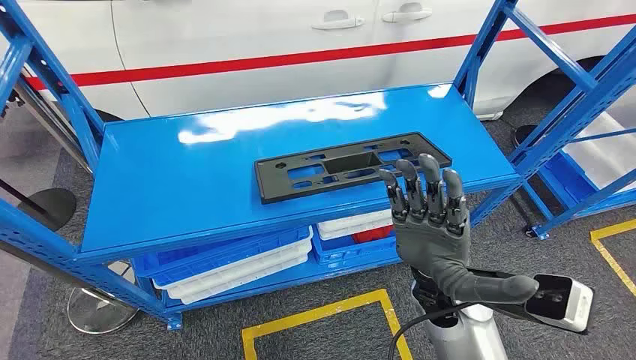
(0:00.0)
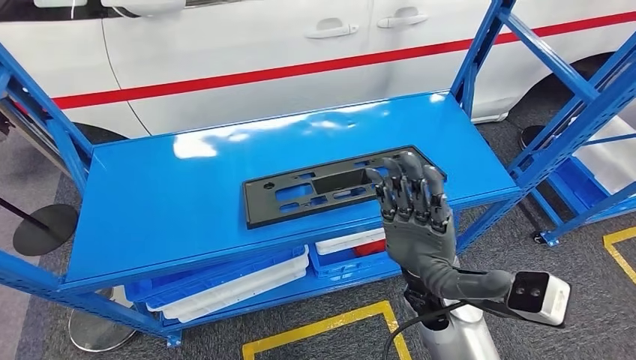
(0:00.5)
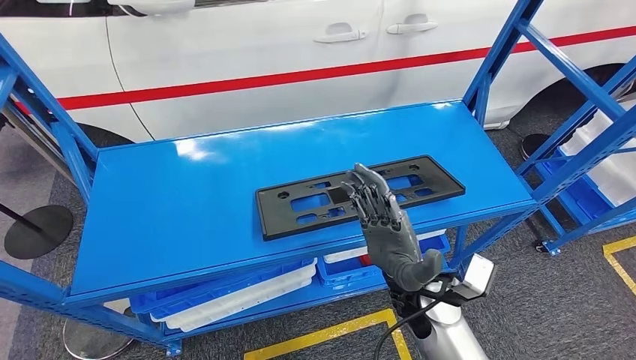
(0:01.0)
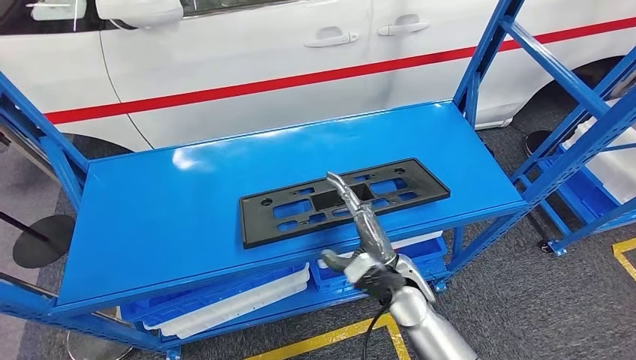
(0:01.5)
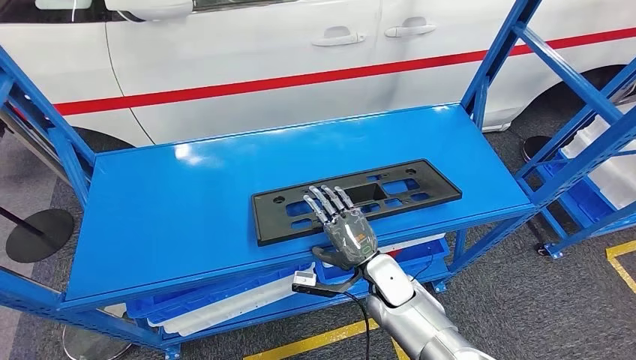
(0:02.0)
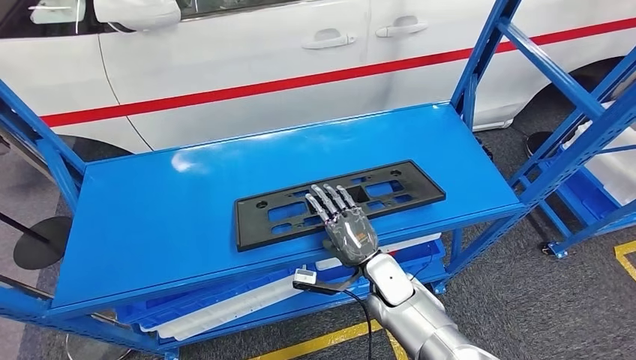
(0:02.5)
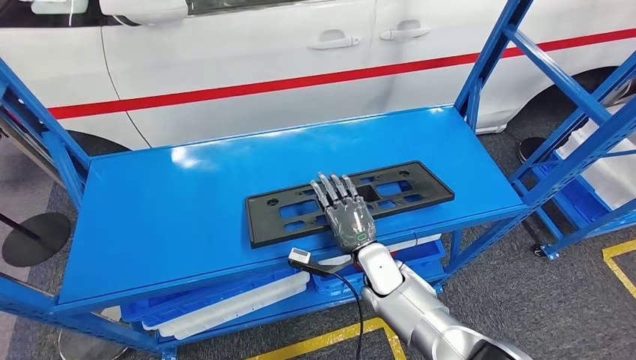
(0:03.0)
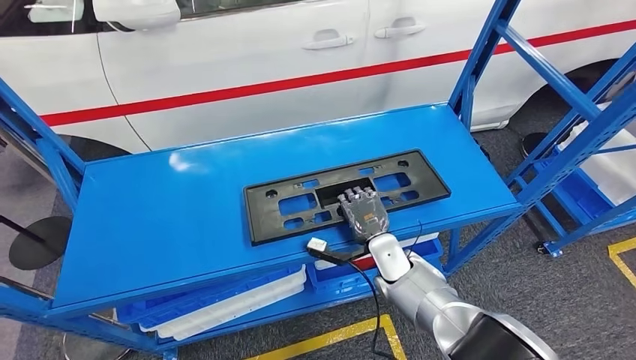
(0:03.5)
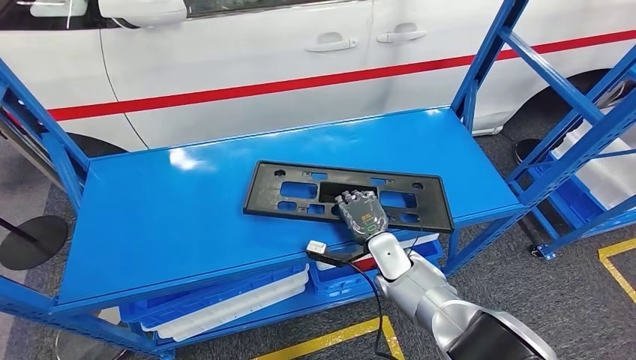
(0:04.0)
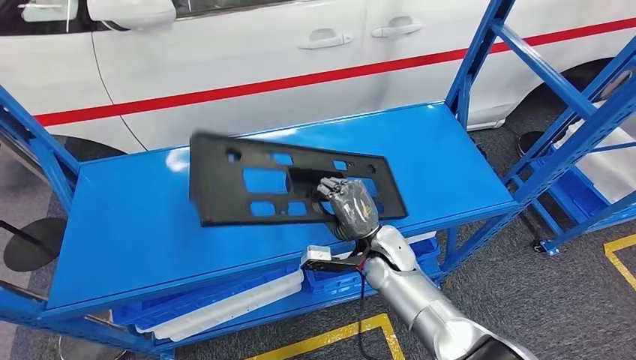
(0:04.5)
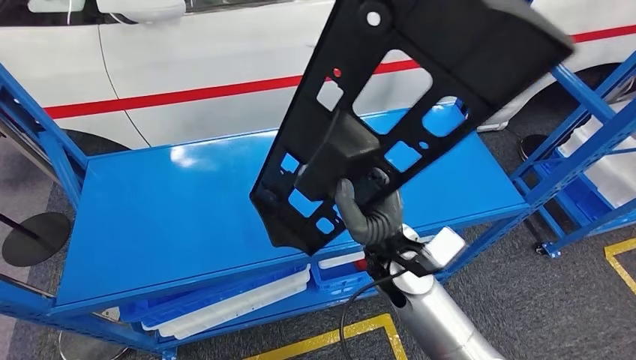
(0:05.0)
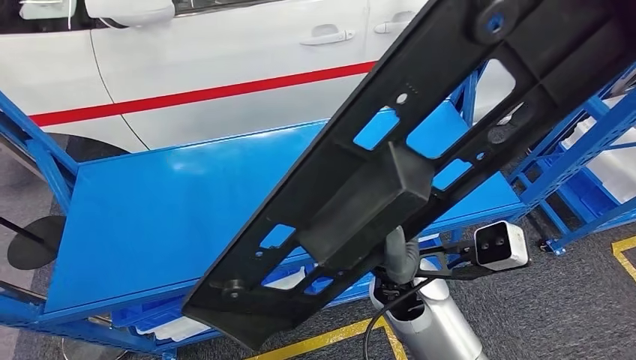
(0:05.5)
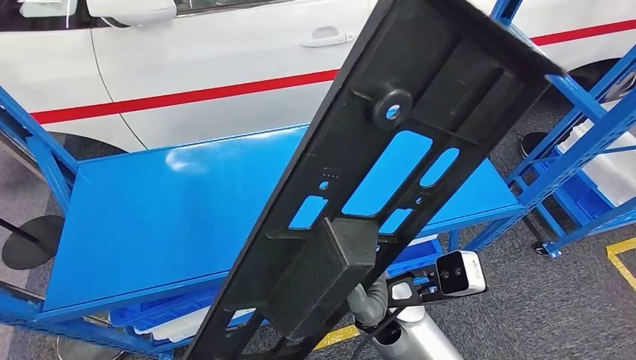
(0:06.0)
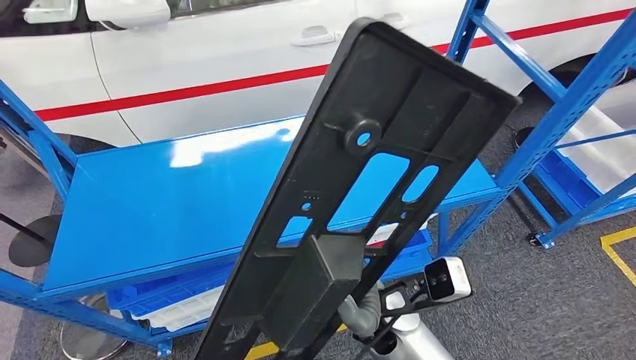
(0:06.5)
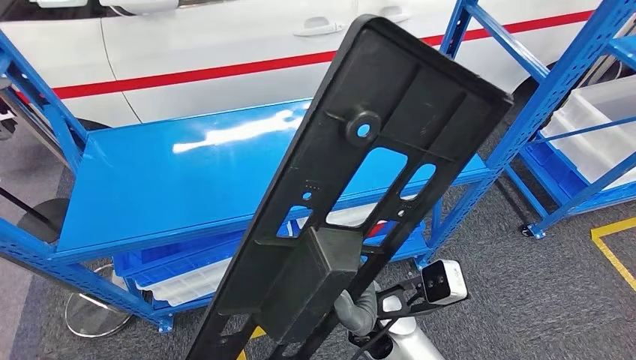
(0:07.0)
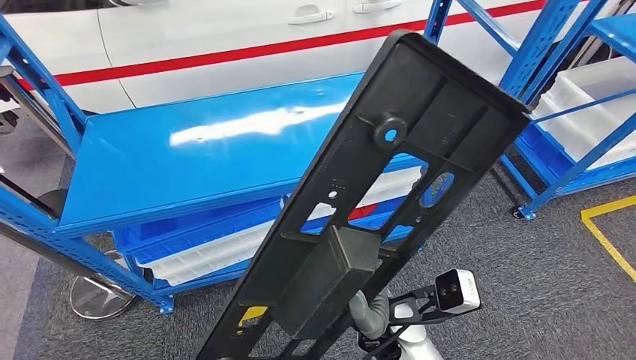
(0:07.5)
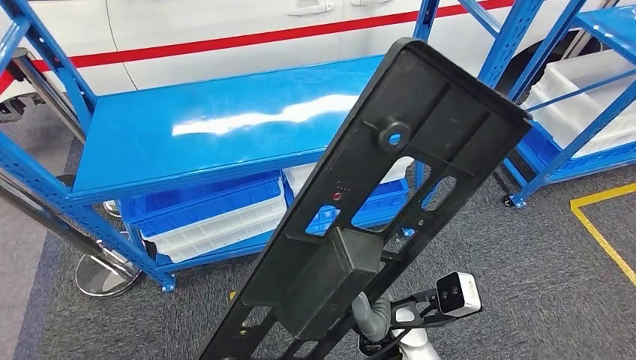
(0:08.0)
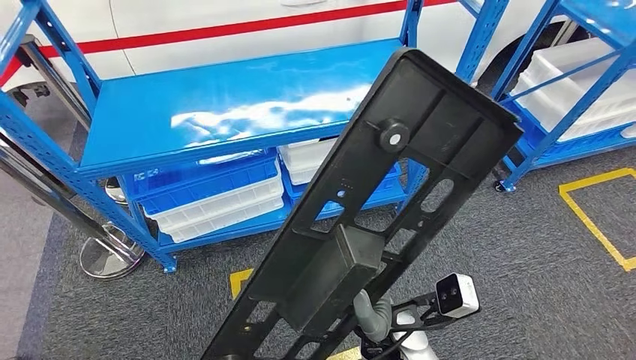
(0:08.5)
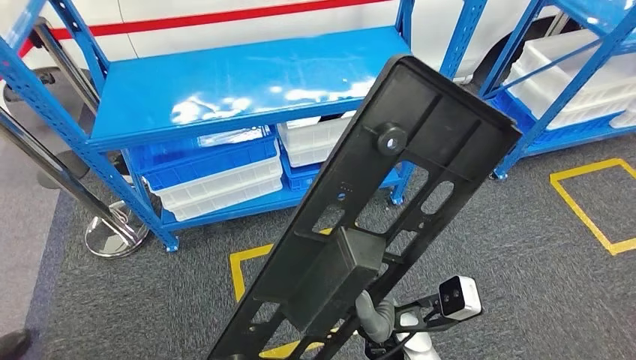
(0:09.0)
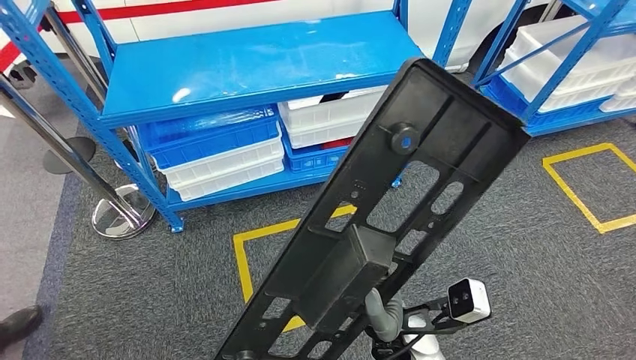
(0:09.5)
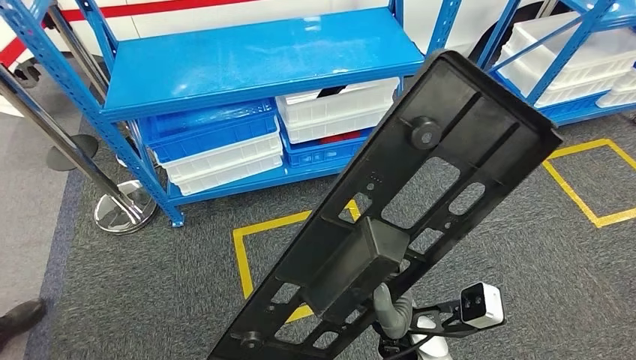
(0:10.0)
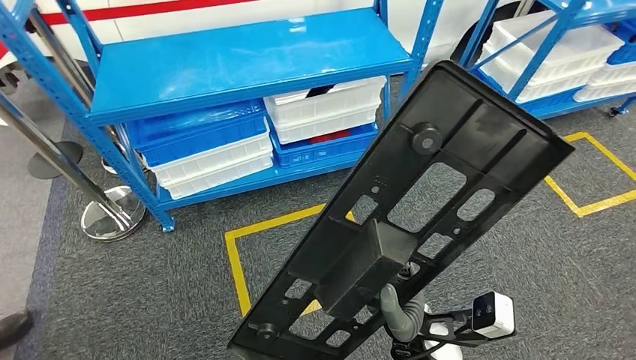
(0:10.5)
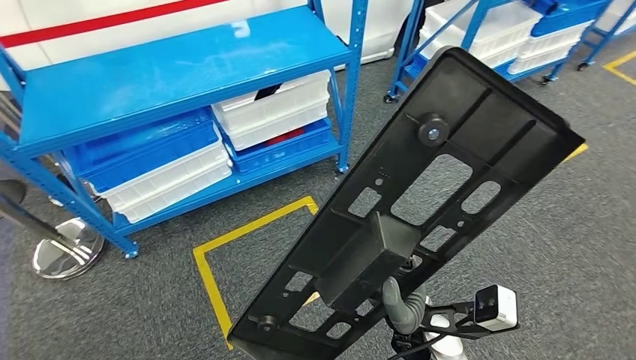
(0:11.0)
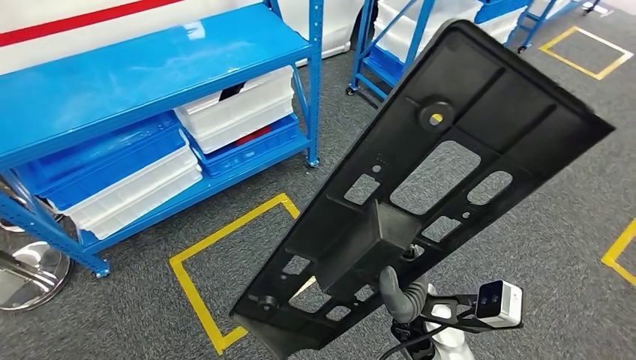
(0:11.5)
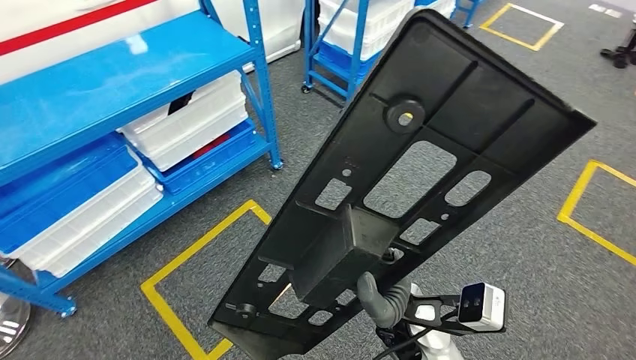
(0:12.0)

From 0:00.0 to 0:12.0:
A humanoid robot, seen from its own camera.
Step, from 0:00.0 to 0:05.0: Pick up the large material from the shelf.

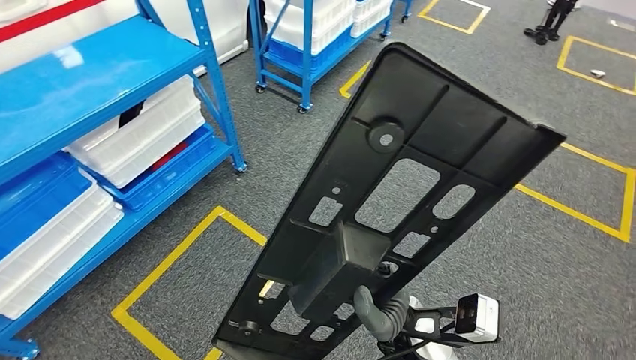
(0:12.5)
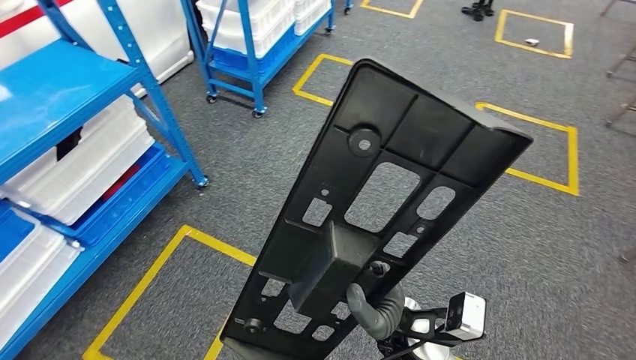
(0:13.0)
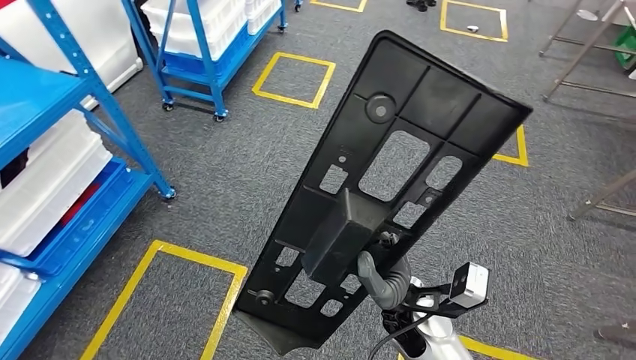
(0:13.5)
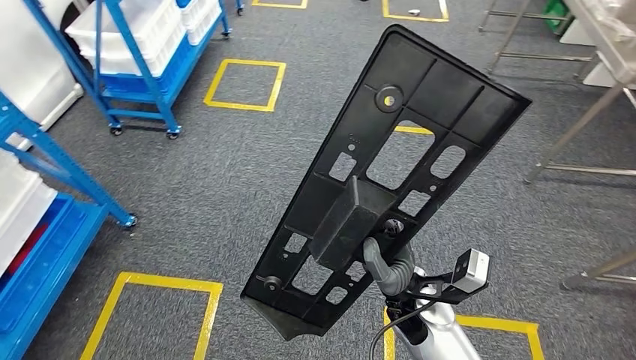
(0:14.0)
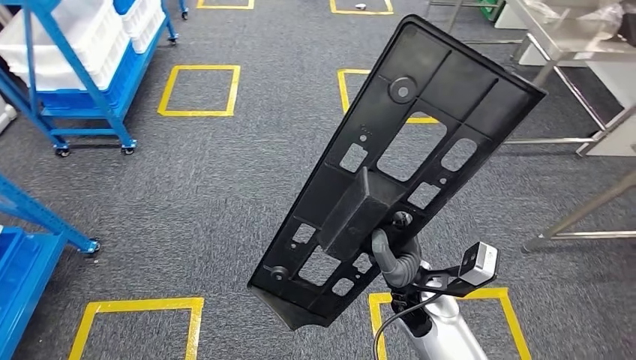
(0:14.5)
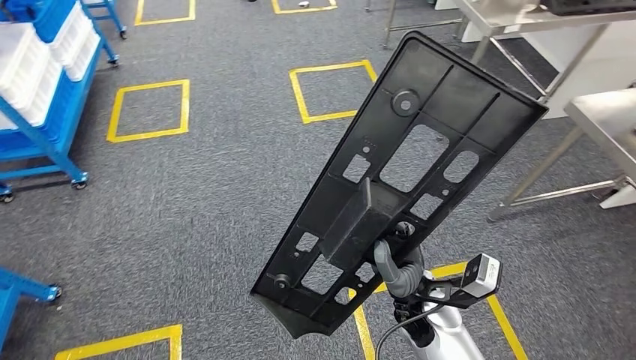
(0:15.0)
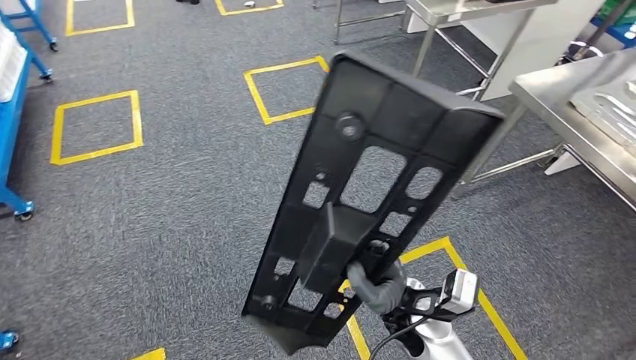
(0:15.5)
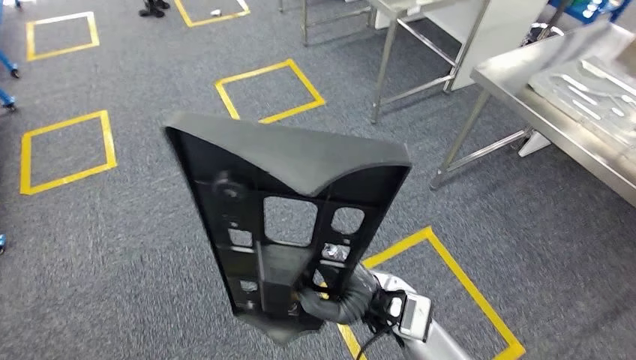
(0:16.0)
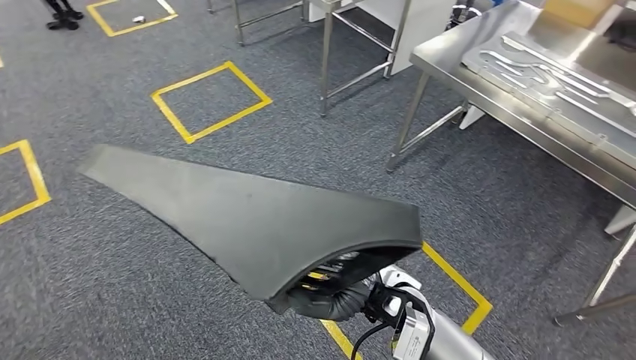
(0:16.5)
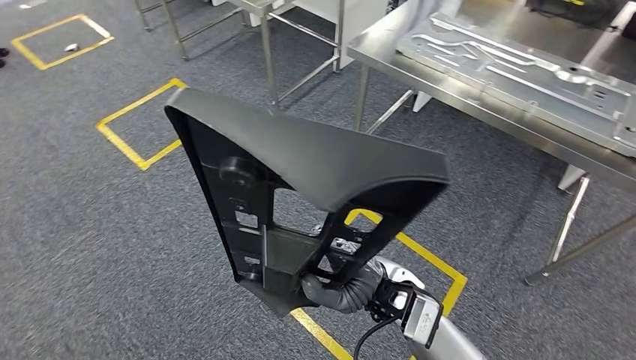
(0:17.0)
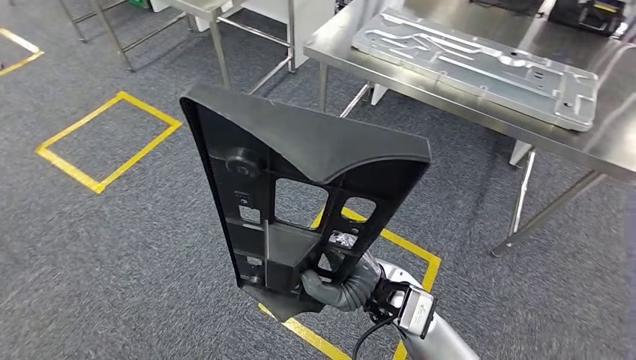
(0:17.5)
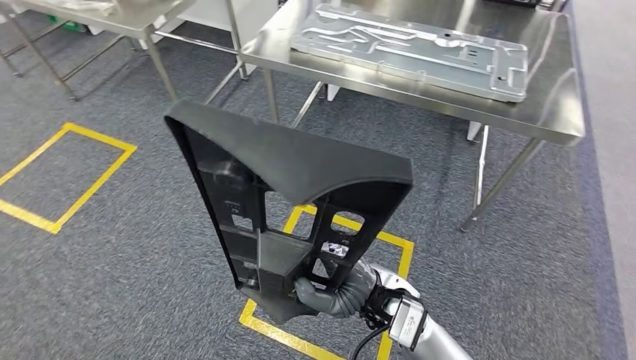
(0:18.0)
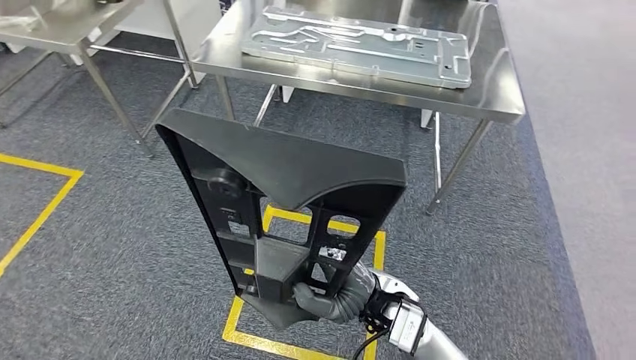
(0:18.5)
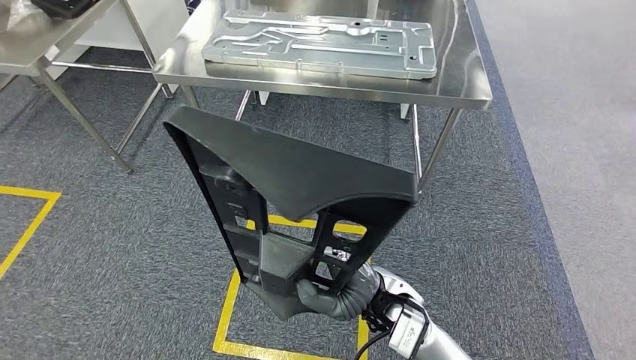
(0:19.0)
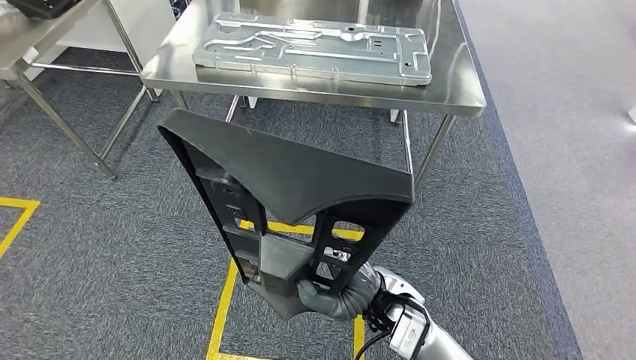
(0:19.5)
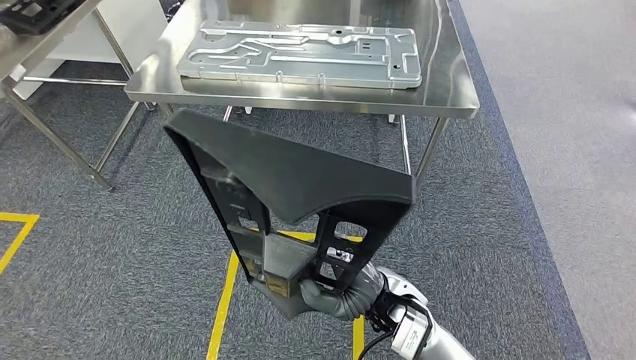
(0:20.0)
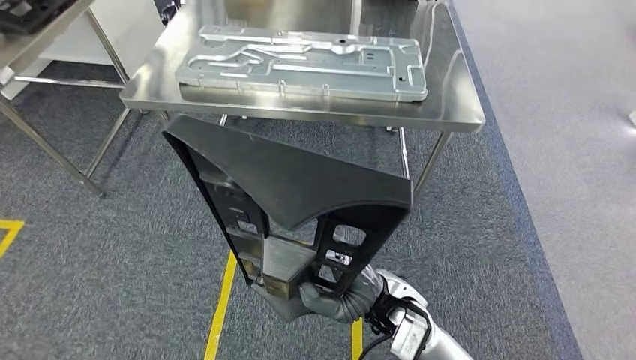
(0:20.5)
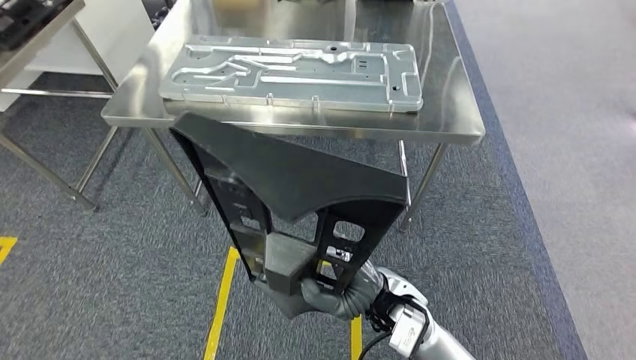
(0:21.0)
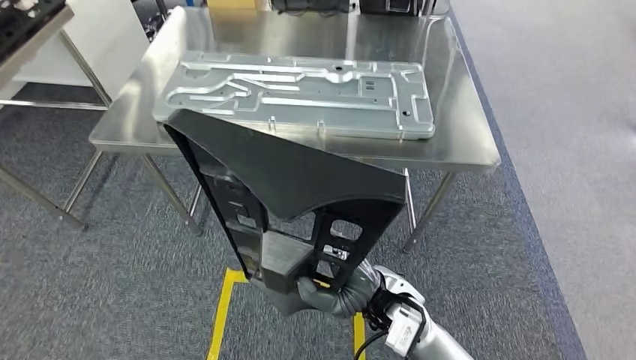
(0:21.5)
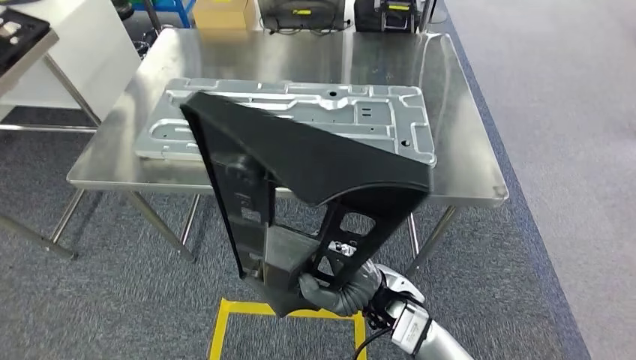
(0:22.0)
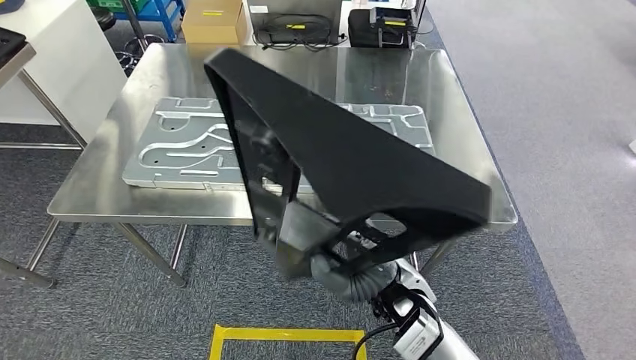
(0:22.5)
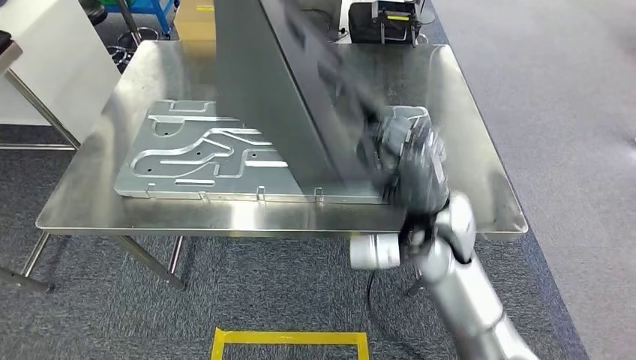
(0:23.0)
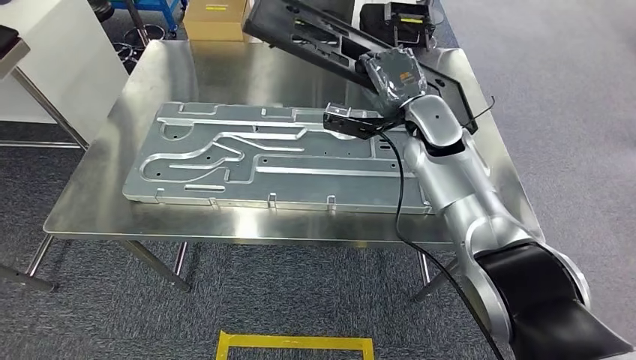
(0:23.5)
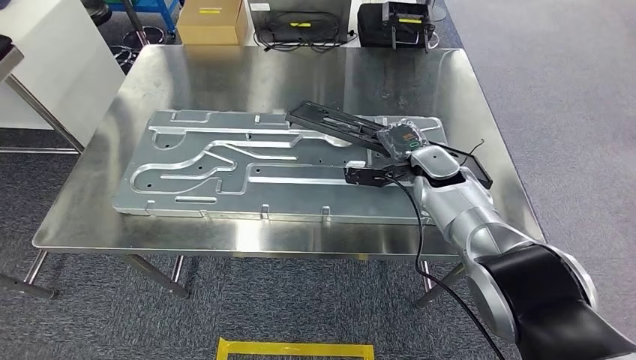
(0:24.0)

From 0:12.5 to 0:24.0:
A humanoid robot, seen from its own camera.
Step, from 0:12.5 to 0:23.0: Move the large material to the front of the workbench.
